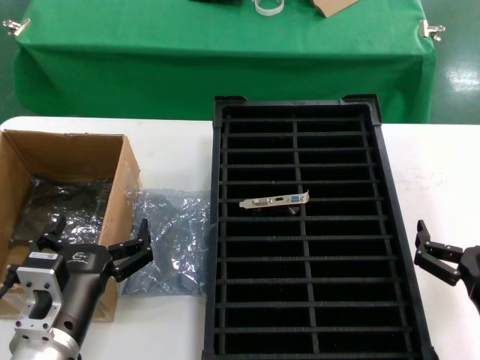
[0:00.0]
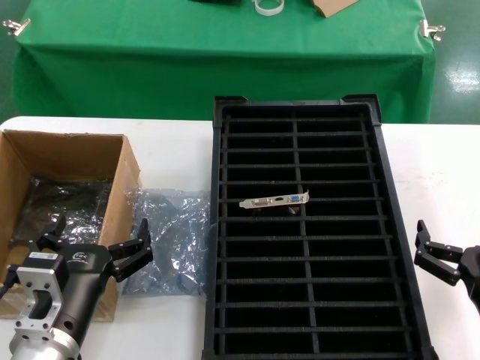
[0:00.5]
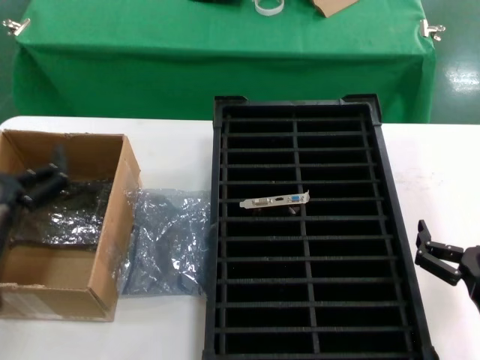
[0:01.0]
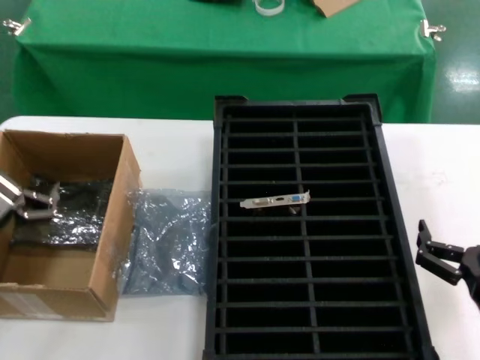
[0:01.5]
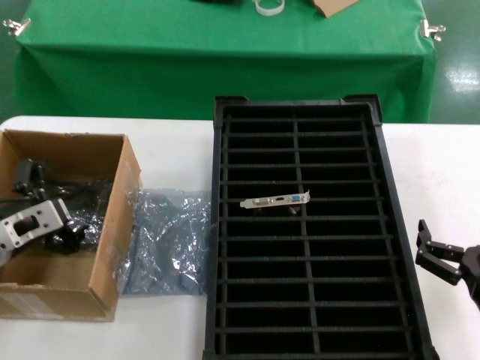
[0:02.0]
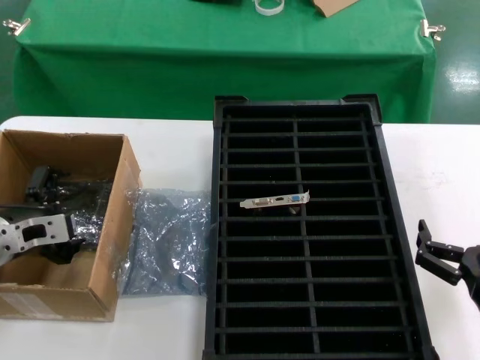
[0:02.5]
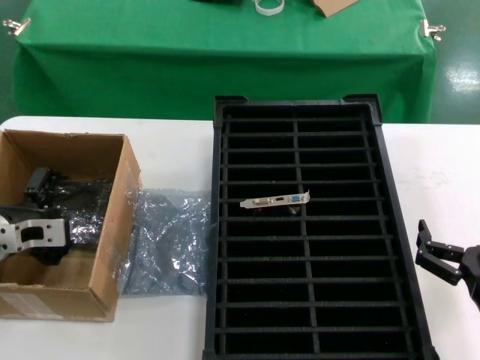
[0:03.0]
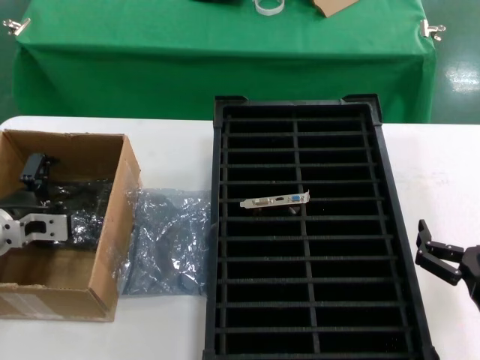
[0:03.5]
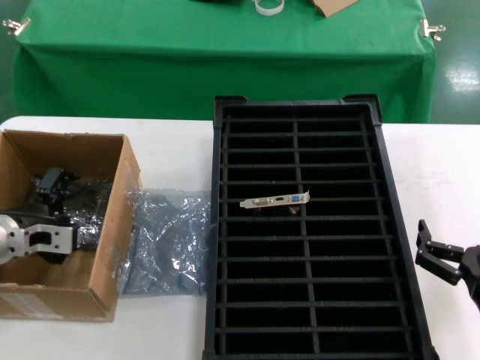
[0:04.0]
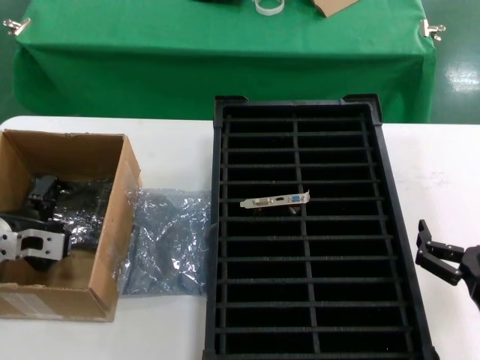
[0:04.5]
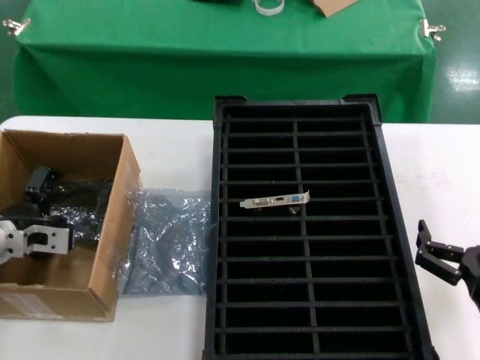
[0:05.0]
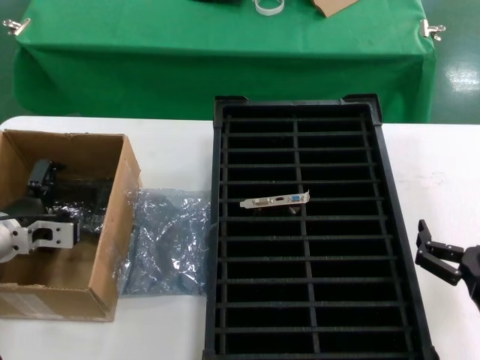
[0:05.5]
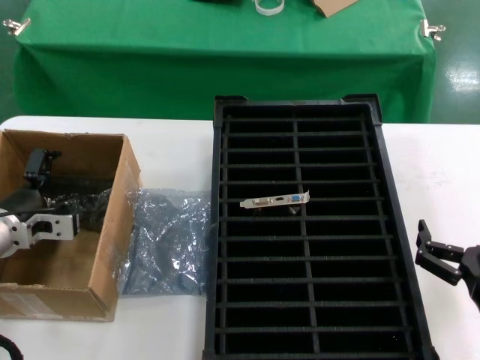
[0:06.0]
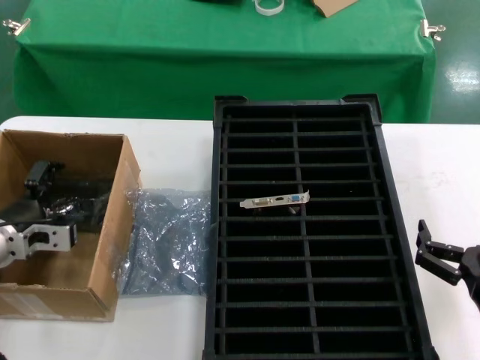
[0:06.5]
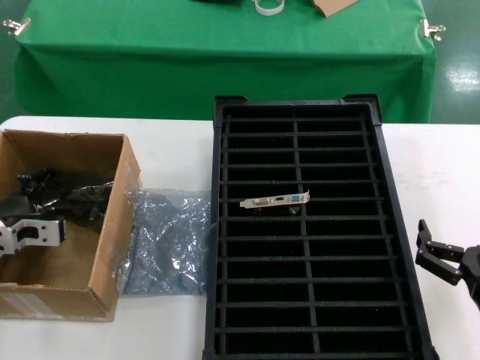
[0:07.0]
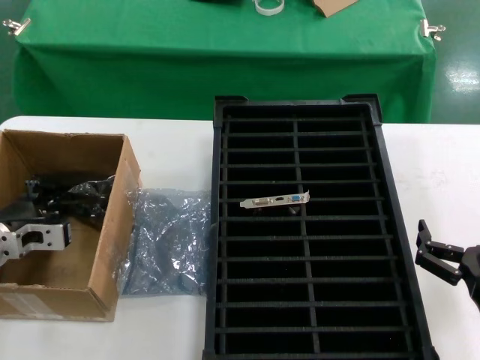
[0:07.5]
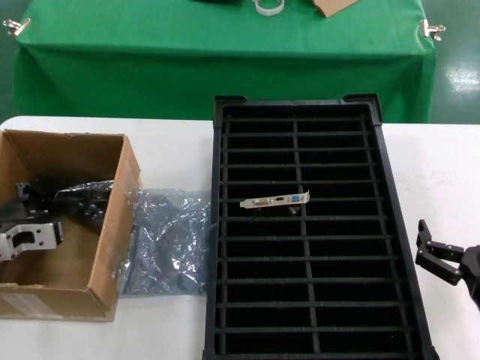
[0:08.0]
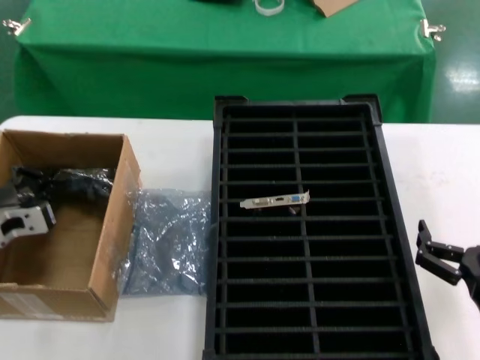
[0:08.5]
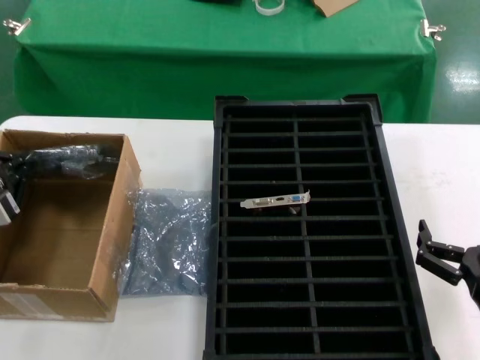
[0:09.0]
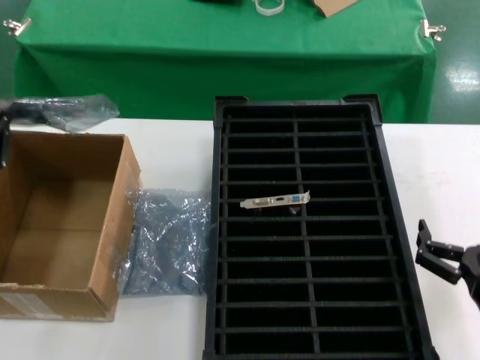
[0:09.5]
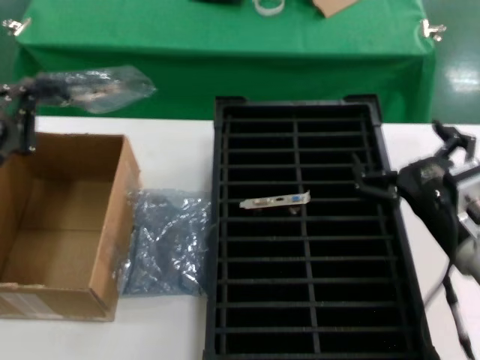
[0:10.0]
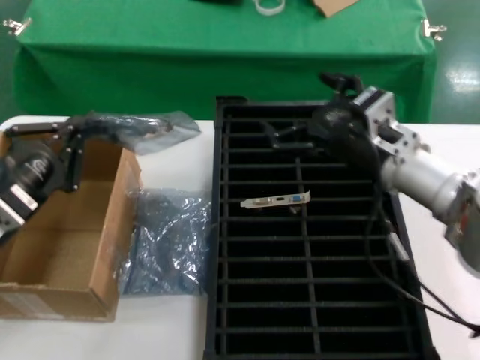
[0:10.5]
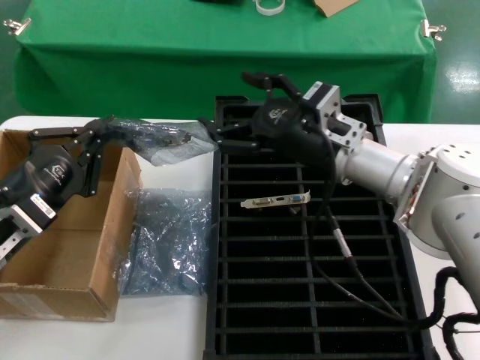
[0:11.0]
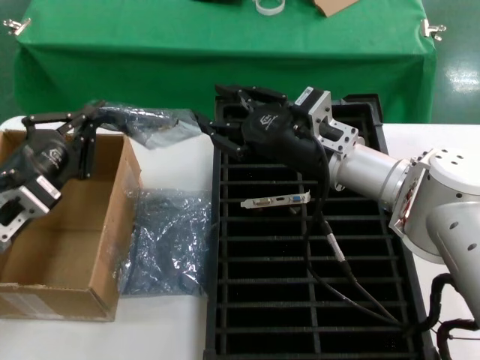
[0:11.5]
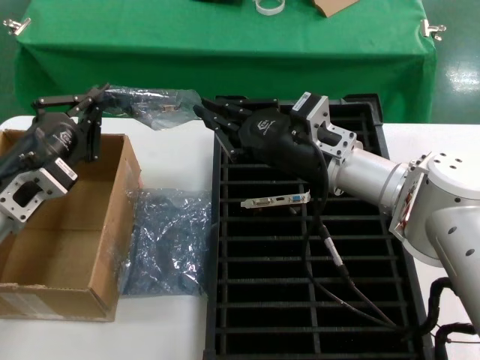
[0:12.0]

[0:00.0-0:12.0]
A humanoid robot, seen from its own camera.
Task of the whole recording: take out graphics card from box remove packaging put into black container.
Step, 0:00.0 to 0:08.0: Grasp the bag.
Step, 0:08.5 to 0:09.5: Lift the bag.
0:00.0 to 0:02.0: The left hand moves to the left, forward and upward, some 20 cm.
0:04.0 to 0:08.0: There are only small adjustments of the hands.
0:08.0 to 0:10.0: The right hand travels forward and upward by roughly 10 cm, while the left hand travels upward and backward by some 10 cm.
0:10.0 to 0:12.0: The left hand moves to the right, approximately 5 cm; the right hand is displaced forward and to the left by approximately 20 cm.

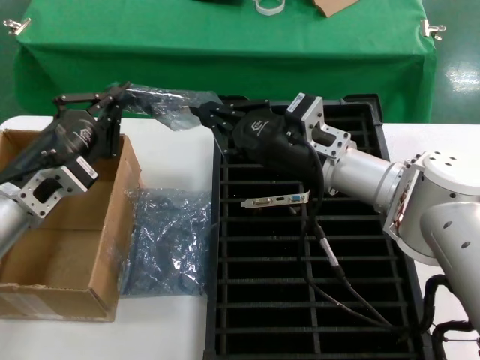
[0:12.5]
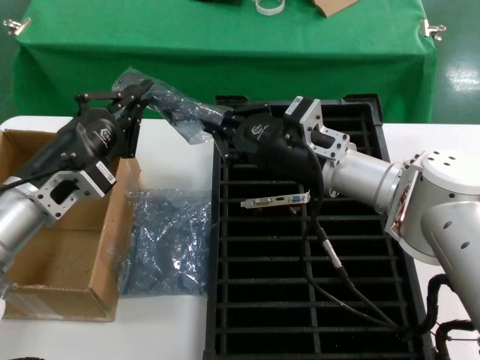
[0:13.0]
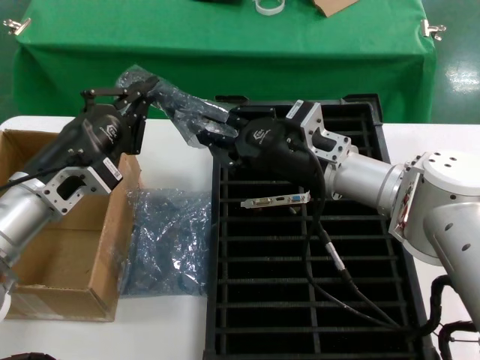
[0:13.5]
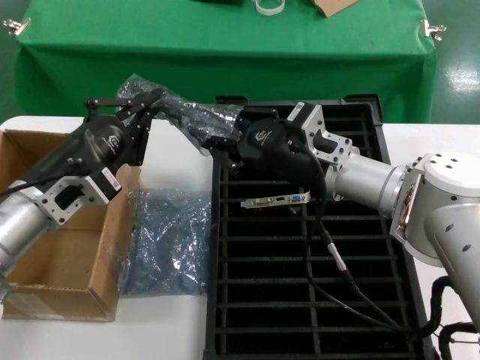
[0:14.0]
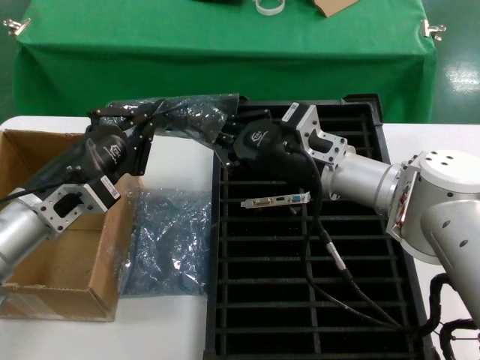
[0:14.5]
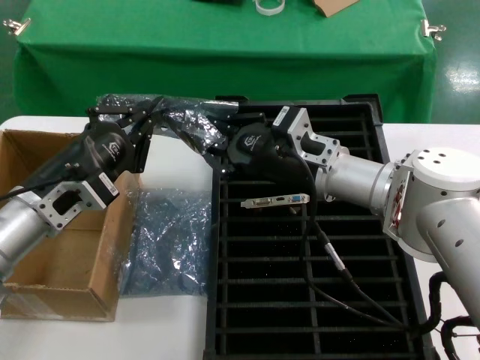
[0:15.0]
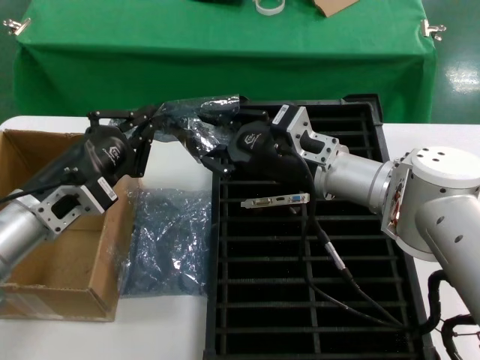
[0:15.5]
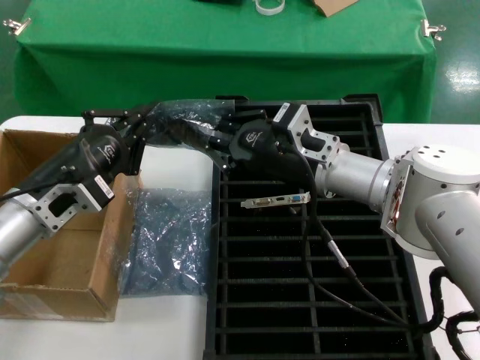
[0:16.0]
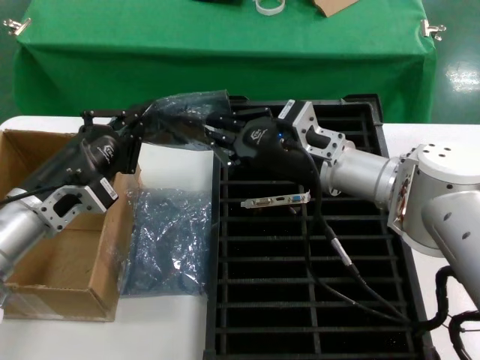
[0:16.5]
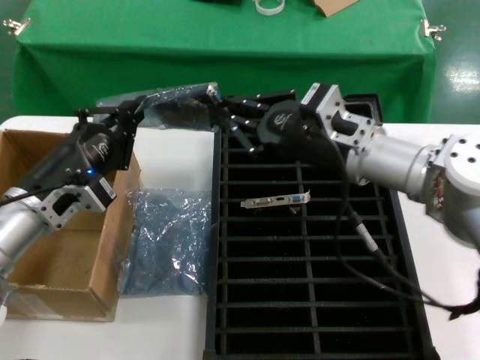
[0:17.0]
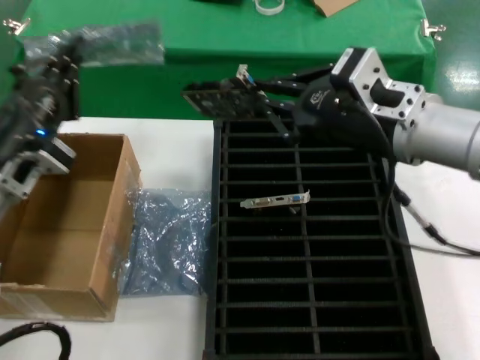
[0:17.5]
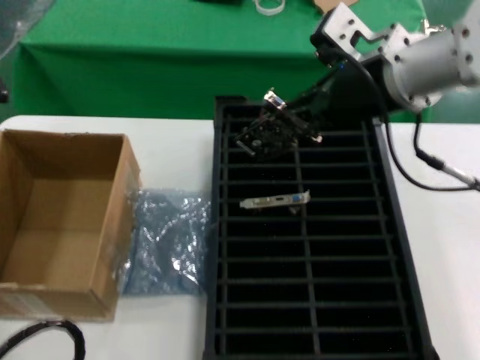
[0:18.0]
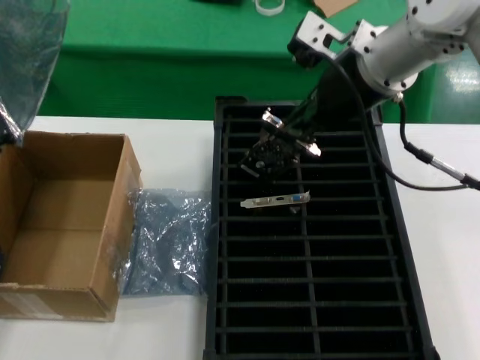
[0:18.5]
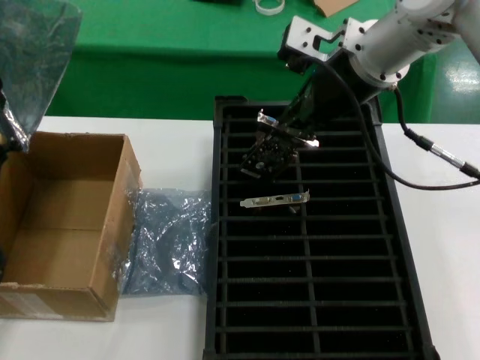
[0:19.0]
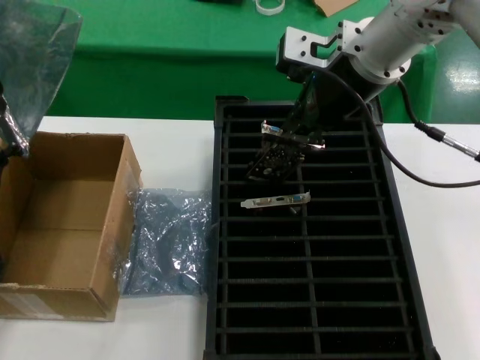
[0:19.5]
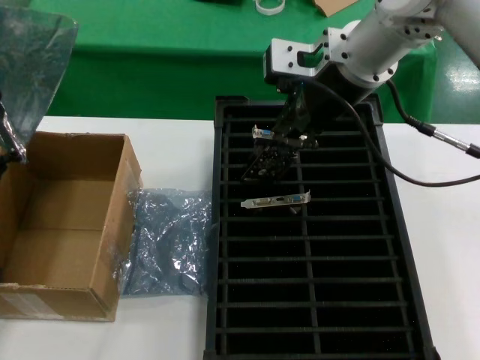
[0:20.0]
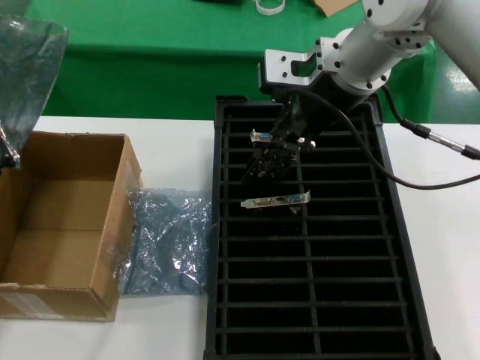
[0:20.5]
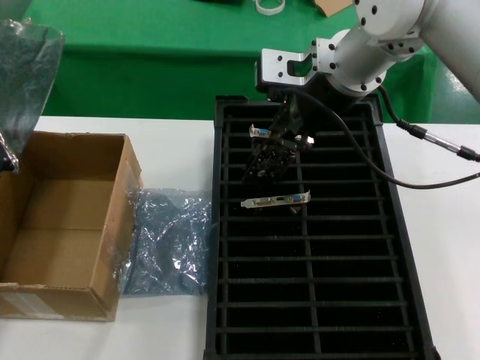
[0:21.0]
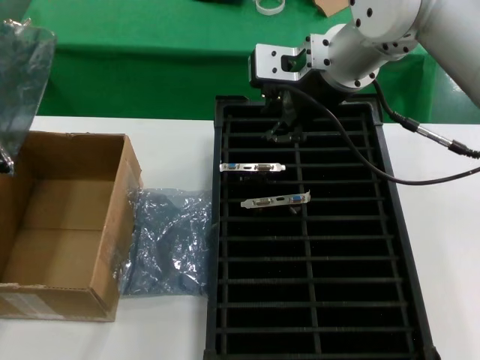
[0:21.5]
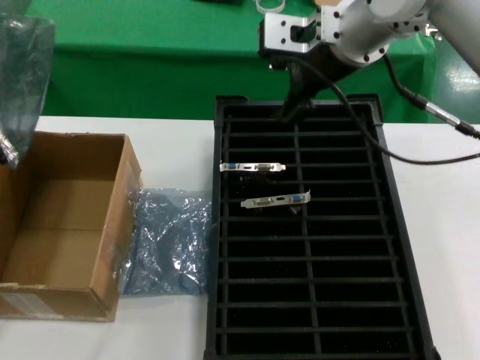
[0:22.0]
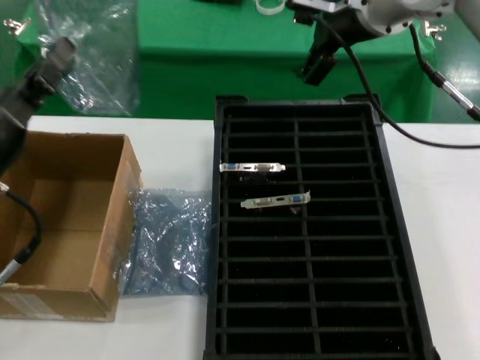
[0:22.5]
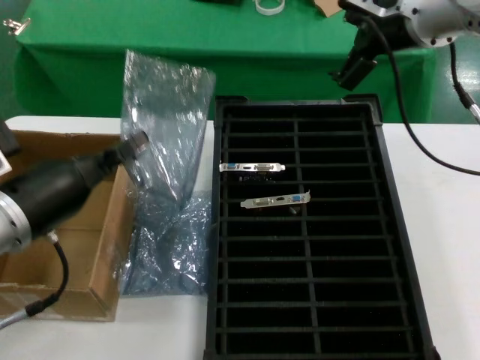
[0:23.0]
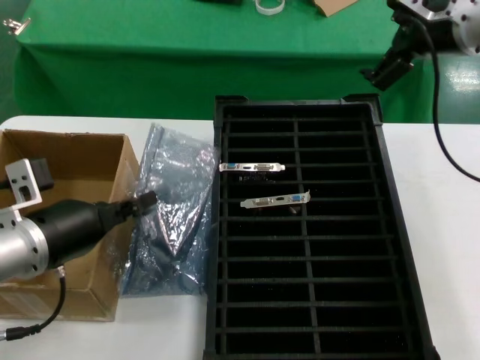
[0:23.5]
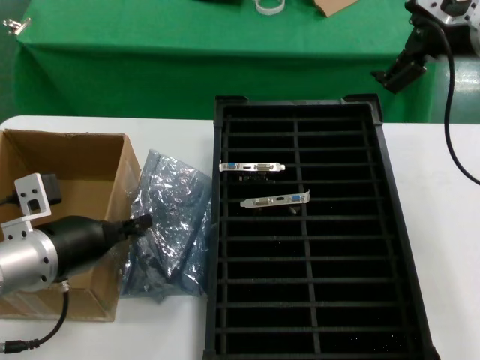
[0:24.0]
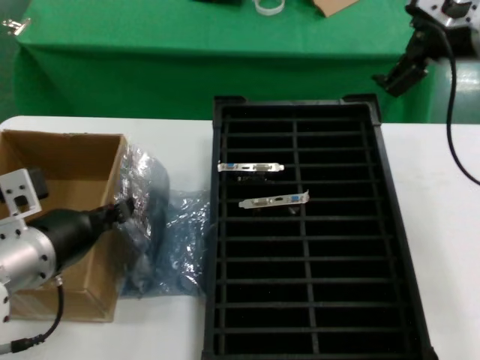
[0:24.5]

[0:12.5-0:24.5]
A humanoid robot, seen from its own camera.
Task of the whole recording: take out graphics card from box remove packaging put into black container.
Step, 0:12.5 to 0:17.0: Take out the hard disk of the bag.
Step, 0:18.0 to 0:21.5: Place the hard disk in the hard disk enclosure.
0:12.5 to 0:16.5: The hands move only a little.
0:16.5 to 0:18.5: The left hand is displaced backward by approximately 5 cm; the right hand heads upward, covering some 20 cm.
0:20.5 to 0:22.5: The left hand shifts approximately 10 cm upward.
0:22.5 to 0:24.5: The left hand goes about 5 cm to the right. Meanwhile the right hand travels to the right by roughly 15 cm.

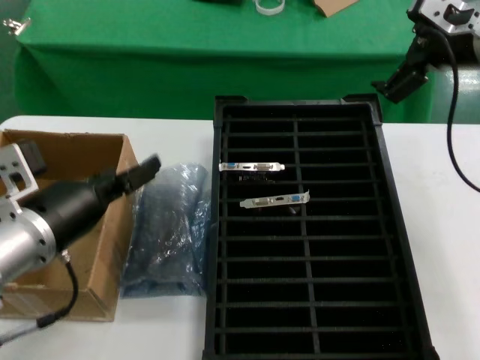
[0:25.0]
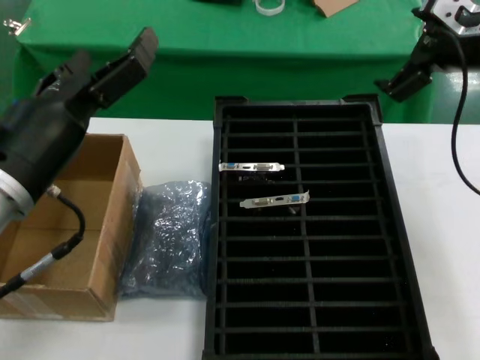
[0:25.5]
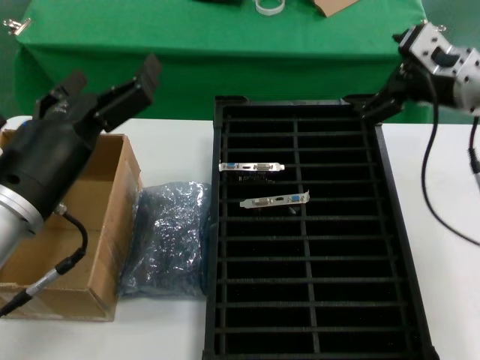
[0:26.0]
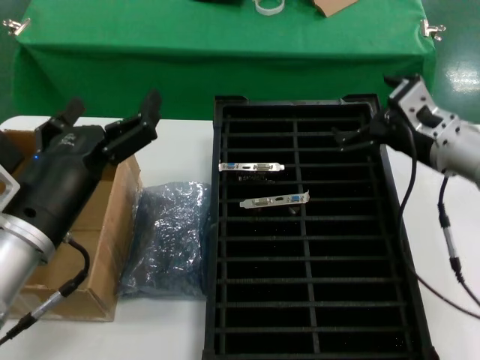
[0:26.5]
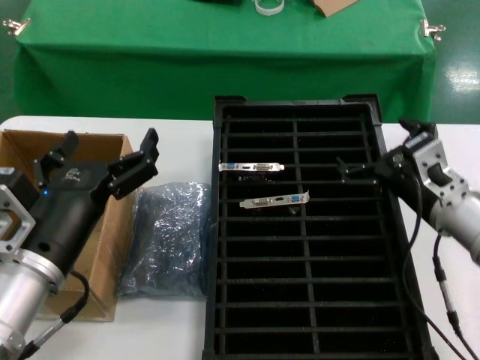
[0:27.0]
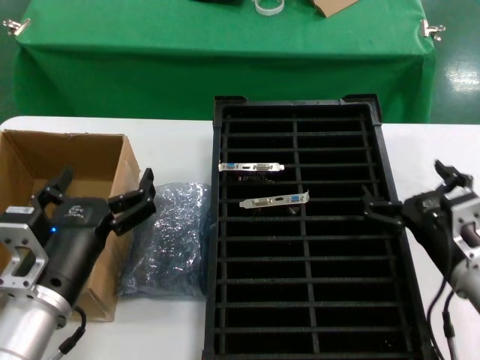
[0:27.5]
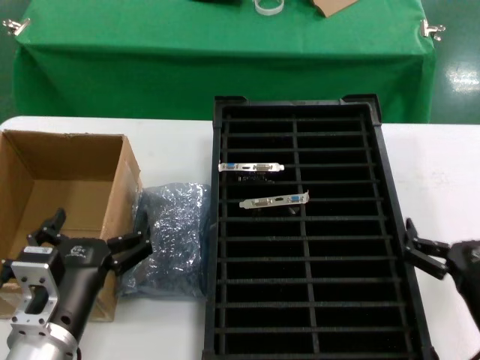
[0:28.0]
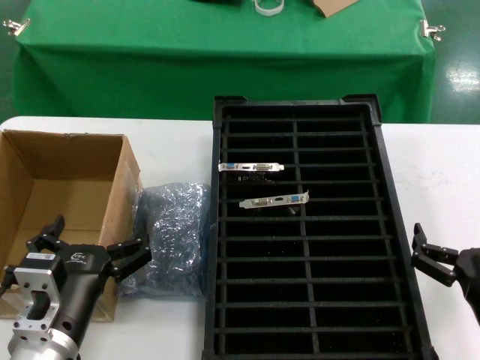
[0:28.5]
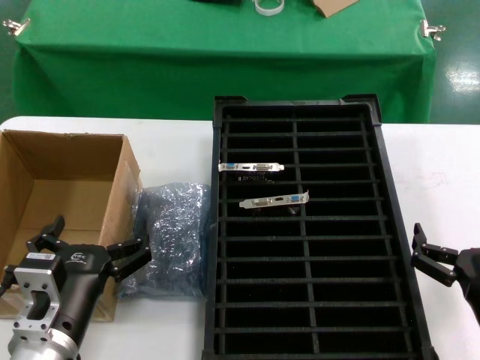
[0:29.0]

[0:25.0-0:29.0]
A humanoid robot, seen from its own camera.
Task of the whole recording: take out graphics card from box remove packaging put into black container.
0:25.0 to 0:27.0: The right hand heads downward, covering roughly 25 cm; the left hand ends up some 5 cm from where it was.
0:27.0 to 0:29.0: The right hand moves backward and downward, approximately 20 cm, while the left hand shifts about 10 cm downward.
